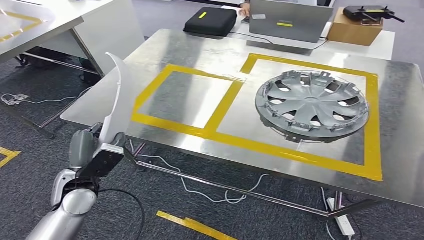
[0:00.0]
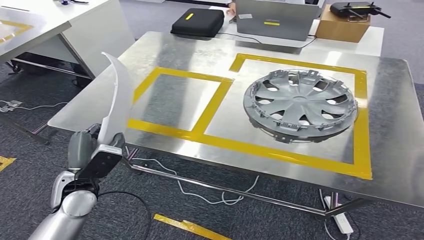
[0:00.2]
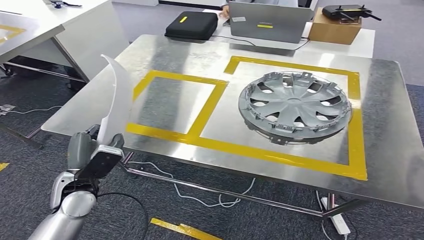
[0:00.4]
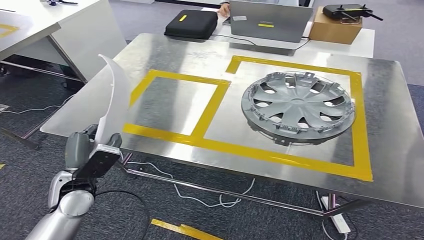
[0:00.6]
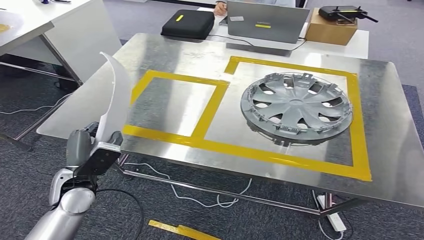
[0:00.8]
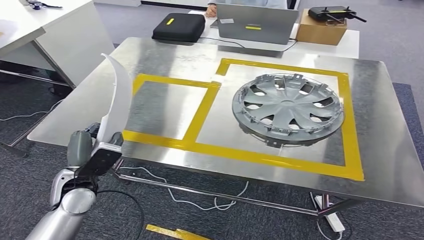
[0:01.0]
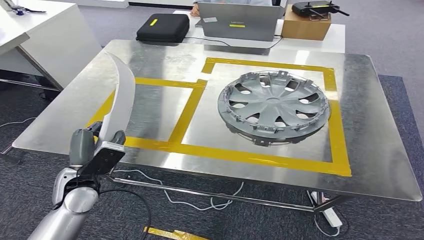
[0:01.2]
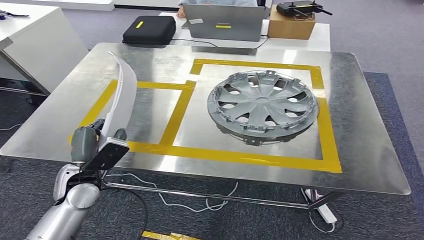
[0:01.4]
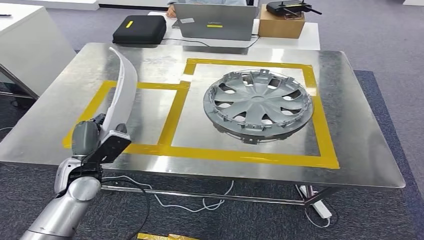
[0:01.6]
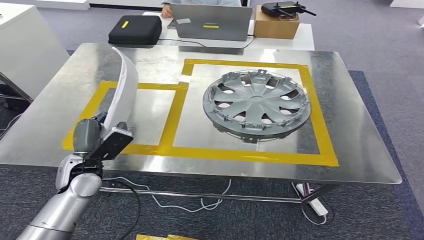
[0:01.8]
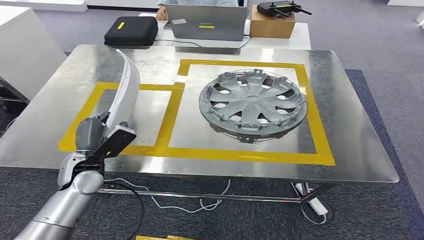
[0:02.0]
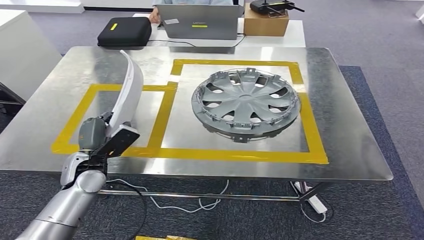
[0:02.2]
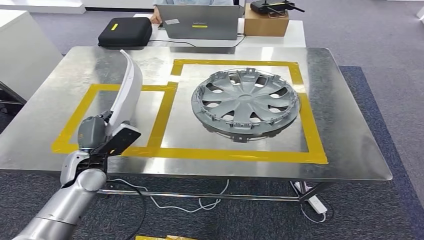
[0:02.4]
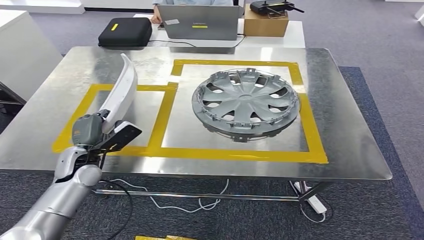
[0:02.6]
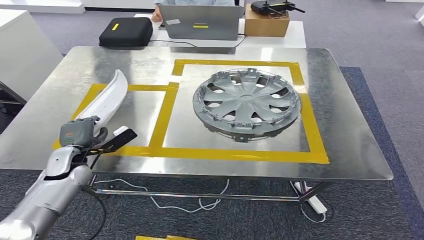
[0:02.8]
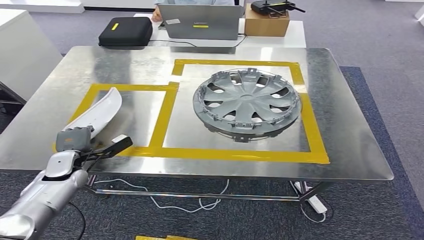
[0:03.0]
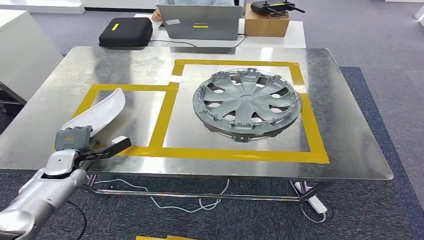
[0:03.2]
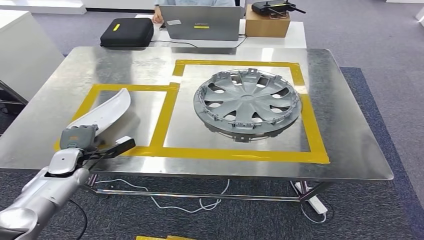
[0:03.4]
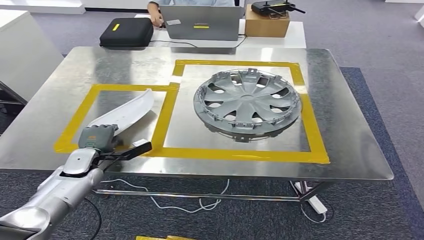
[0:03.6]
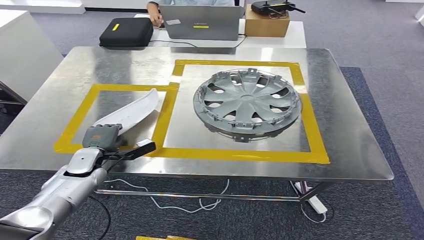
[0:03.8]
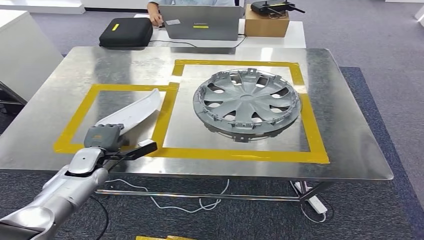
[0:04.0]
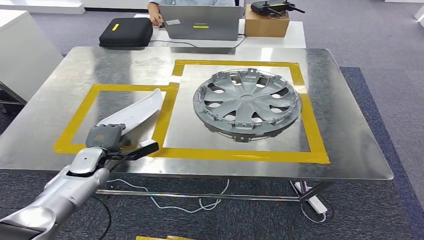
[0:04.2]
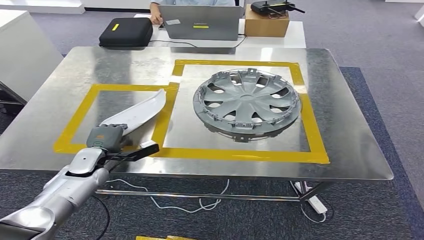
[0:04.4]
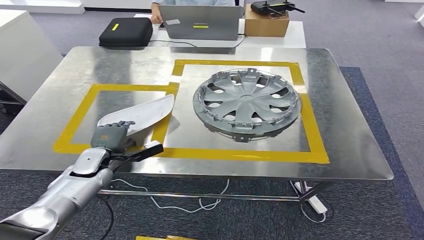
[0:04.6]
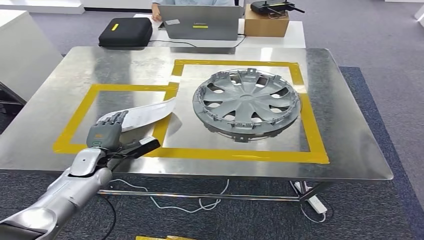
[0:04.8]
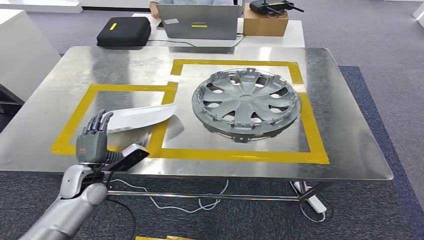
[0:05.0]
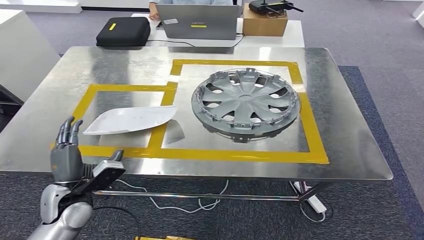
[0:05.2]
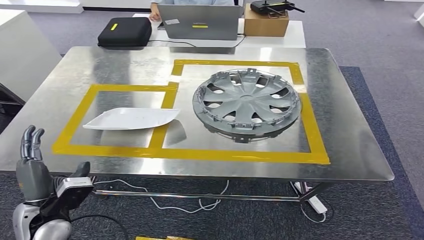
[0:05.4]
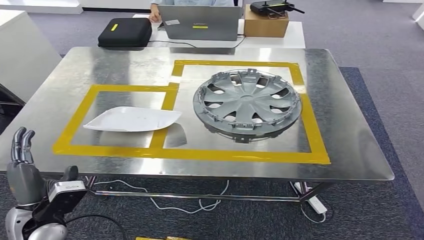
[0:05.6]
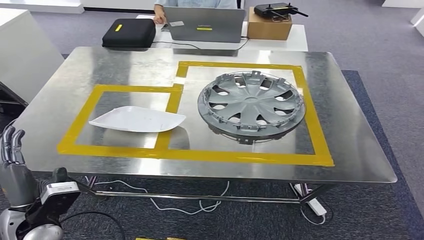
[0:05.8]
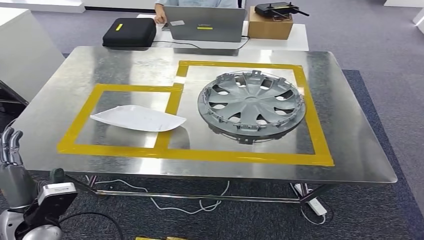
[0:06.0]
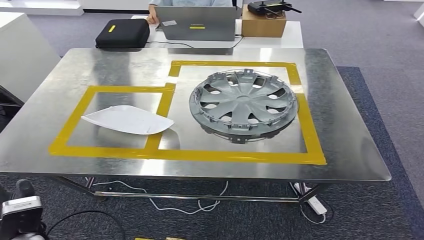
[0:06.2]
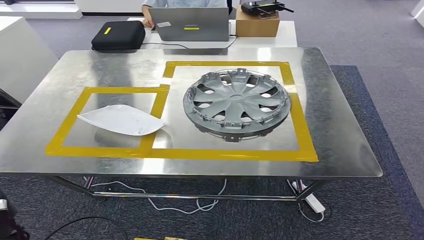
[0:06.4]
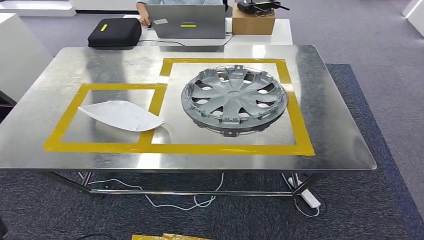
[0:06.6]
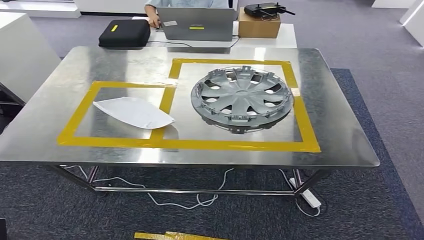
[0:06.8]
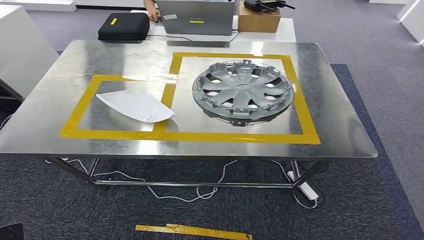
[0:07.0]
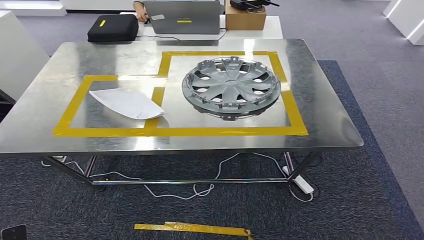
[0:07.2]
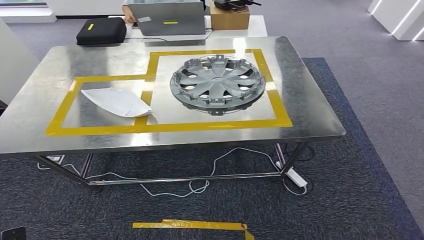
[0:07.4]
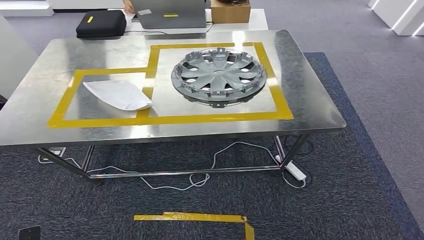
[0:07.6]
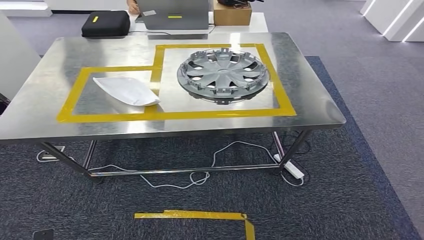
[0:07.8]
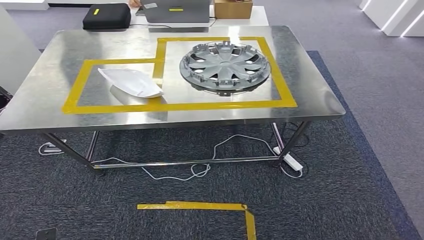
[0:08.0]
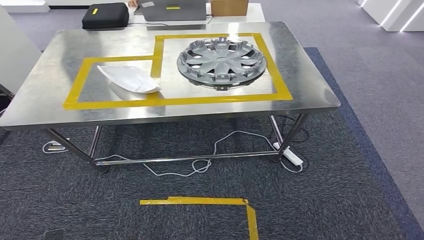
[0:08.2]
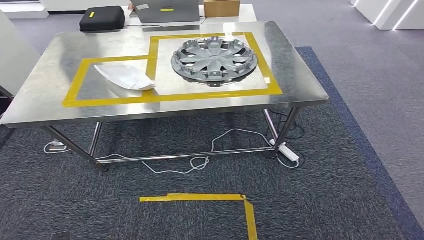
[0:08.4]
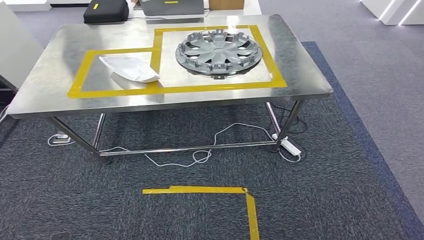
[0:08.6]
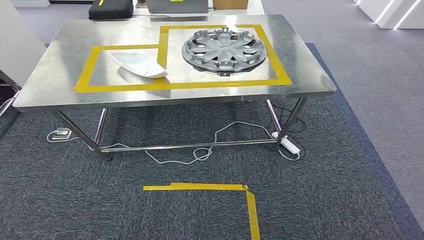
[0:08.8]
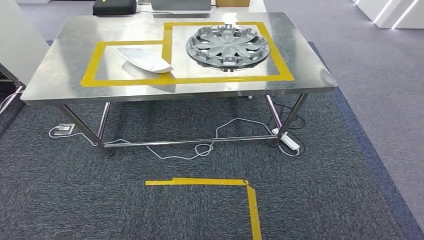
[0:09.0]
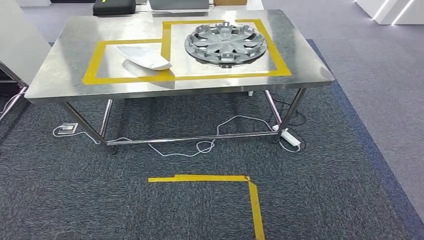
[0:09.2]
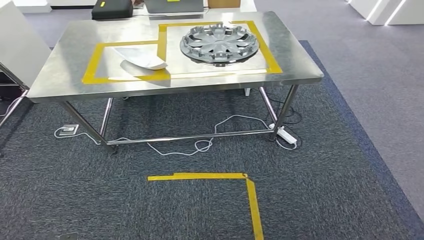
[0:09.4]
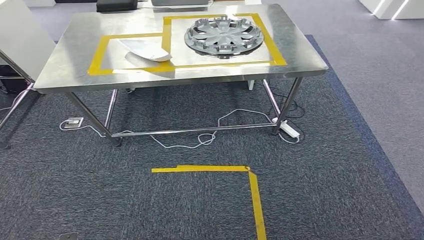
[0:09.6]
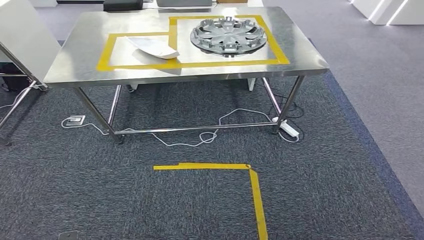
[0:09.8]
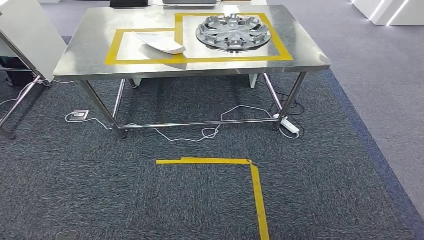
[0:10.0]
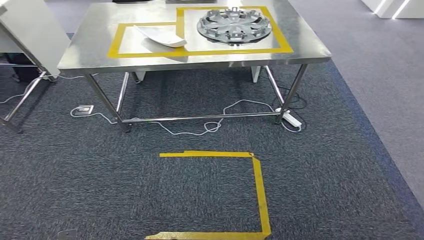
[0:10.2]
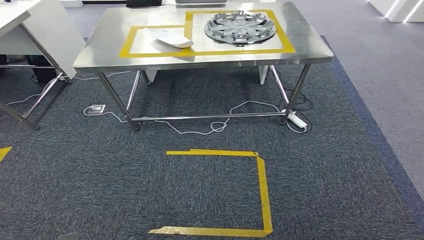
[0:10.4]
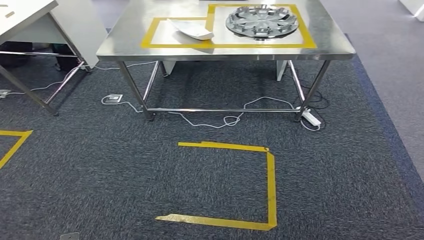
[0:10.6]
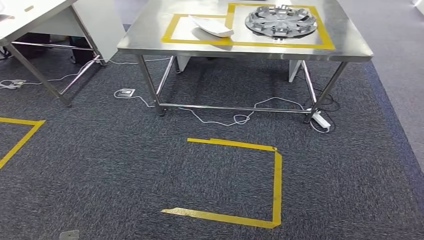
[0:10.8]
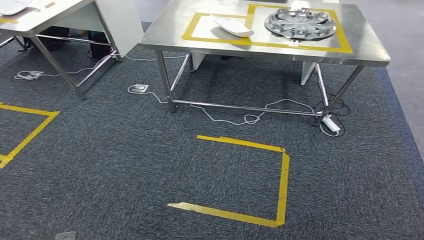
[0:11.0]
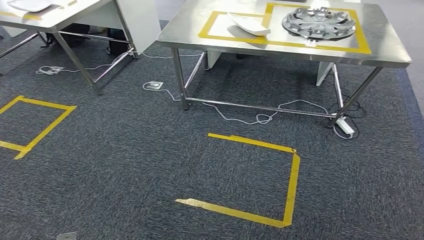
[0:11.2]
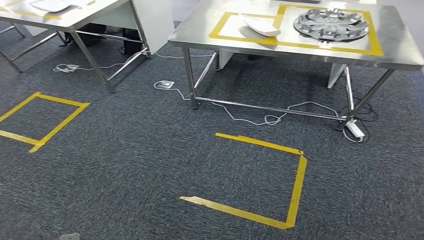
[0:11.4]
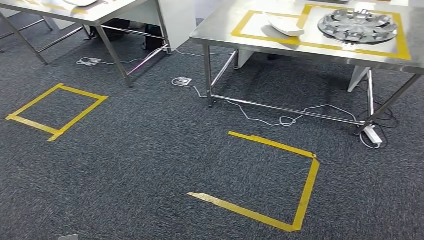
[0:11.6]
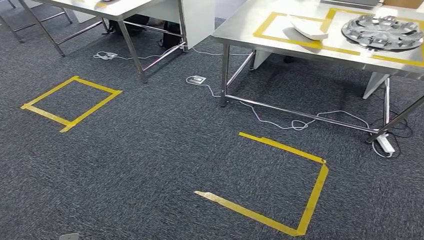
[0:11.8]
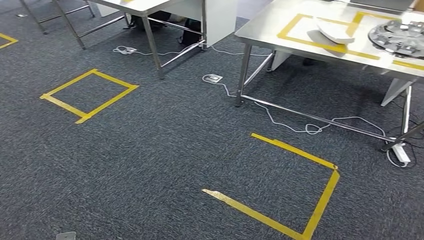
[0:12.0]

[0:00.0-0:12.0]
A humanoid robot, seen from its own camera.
Step, 0:00.4 to 0:05.2: Insert the small parts into the corresponding holes on the workbench.
0:03.0 to 0:04.4: The left hand travels to the right by roughly 5 cm.

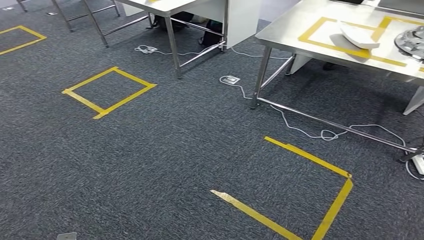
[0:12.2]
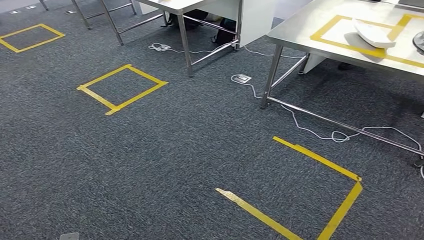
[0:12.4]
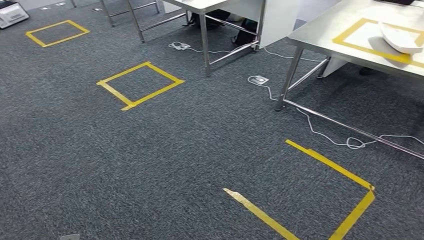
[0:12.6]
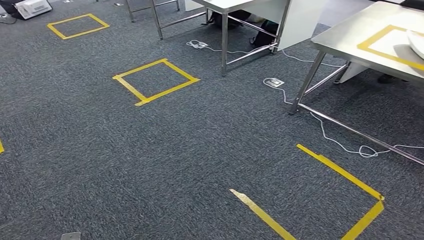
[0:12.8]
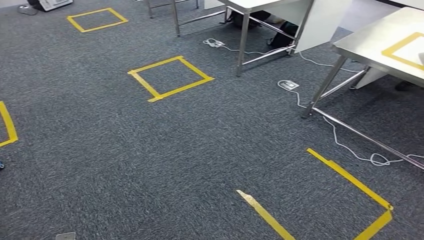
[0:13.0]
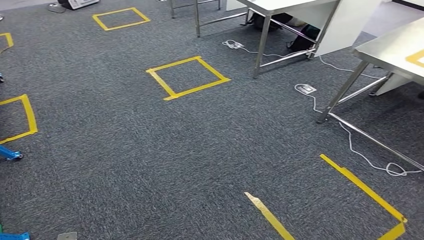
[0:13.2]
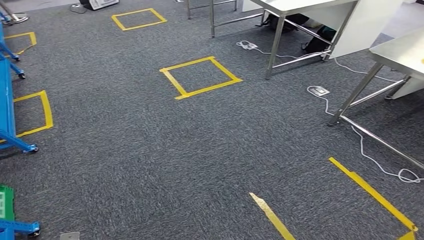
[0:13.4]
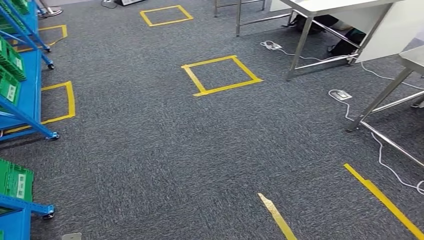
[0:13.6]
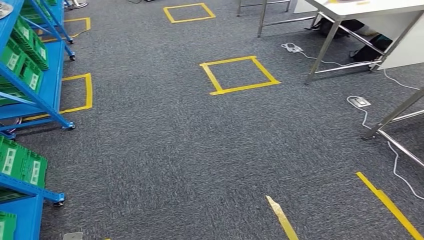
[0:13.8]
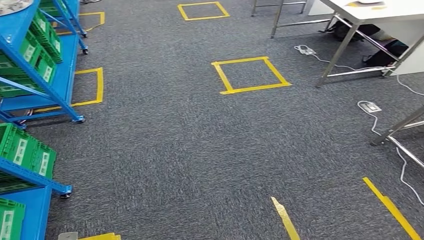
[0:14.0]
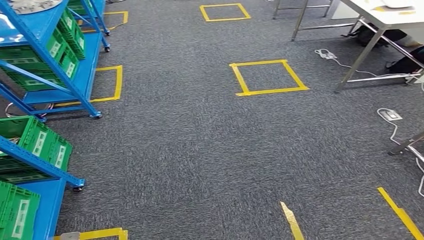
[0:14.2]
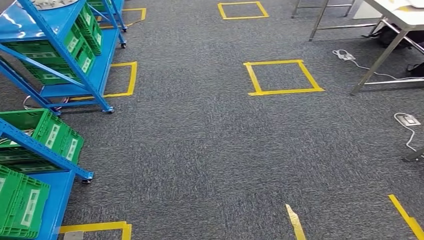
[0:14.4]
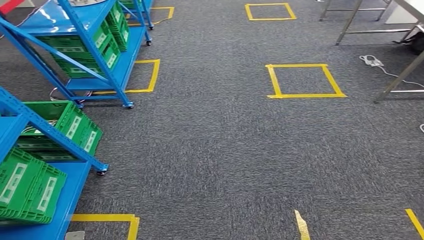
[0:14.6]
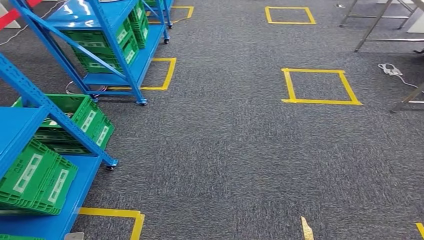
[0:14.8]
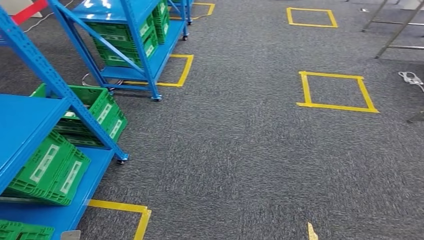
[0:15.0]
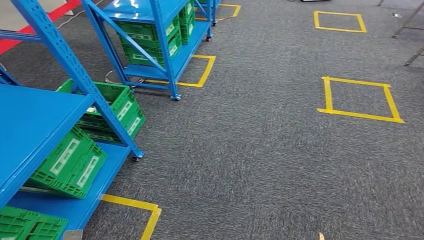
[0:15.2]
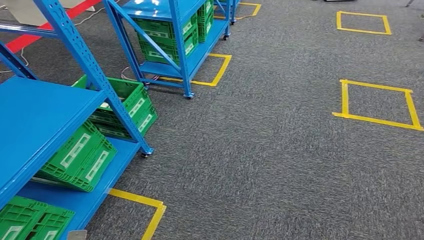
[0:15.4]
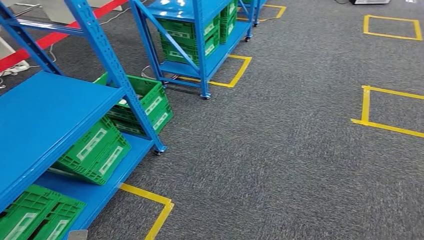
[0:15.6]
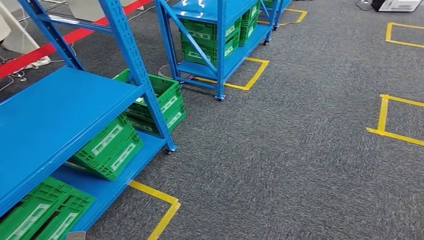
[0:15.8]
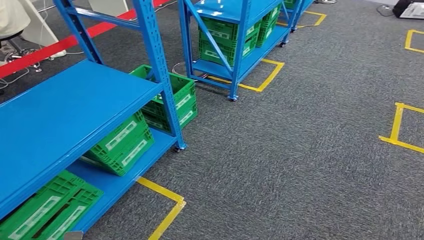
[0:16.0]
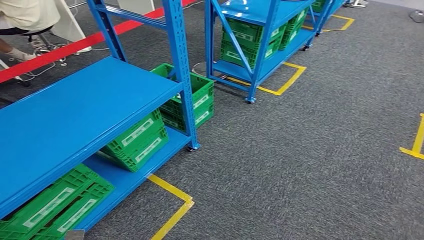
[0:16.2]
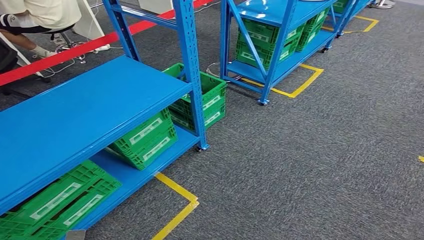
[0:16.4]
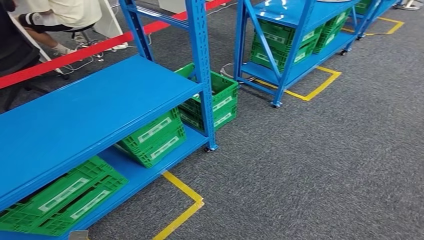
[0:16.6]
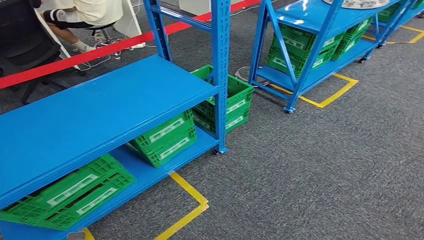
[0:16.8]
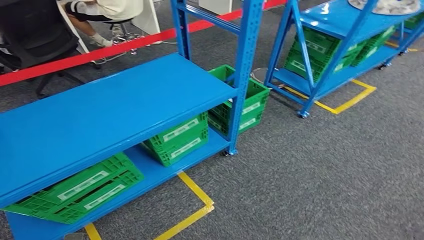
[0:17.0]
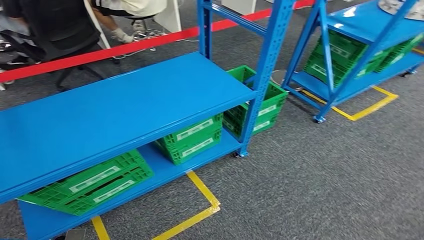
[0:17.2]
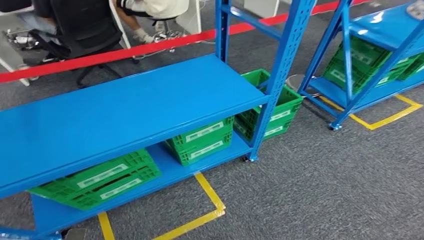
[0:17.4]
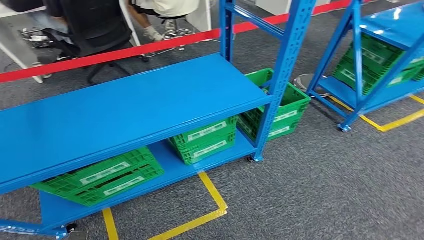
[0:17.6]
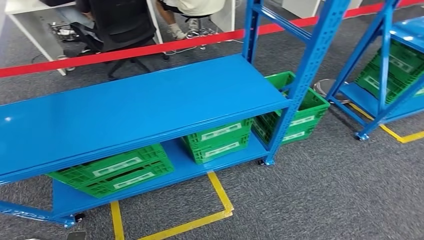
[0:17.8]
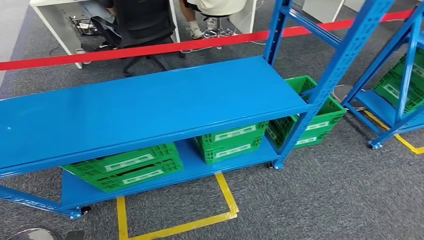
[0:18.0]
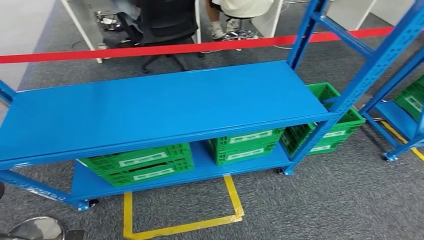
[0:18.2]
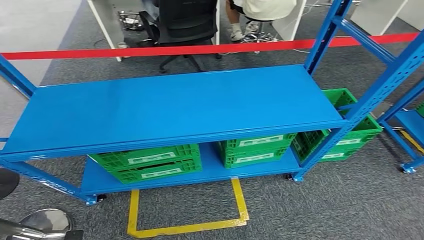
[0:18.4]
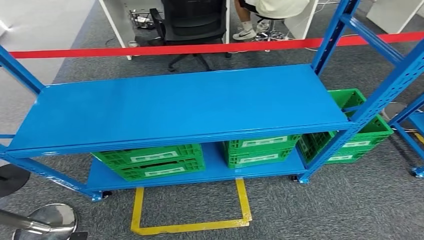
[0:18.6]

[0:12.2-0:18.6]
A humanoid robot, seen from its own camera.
Step, 0:12.2 to 0:18.6: Move to the initial position of the workbench.
